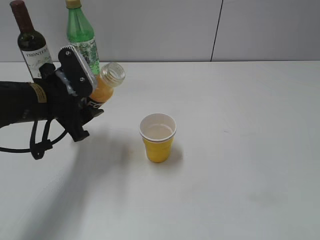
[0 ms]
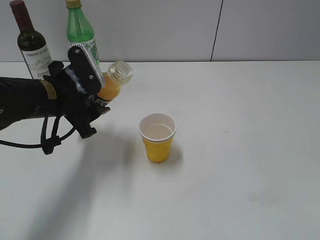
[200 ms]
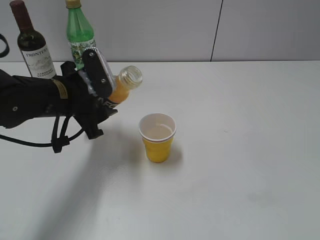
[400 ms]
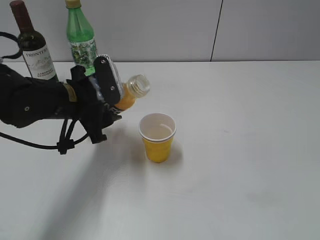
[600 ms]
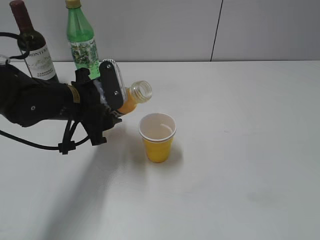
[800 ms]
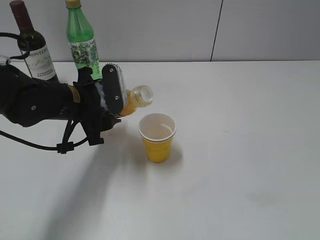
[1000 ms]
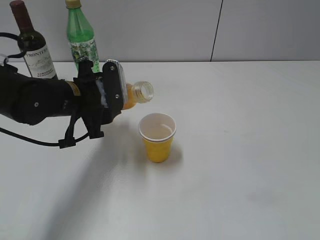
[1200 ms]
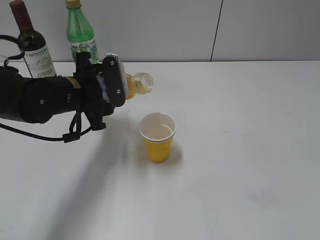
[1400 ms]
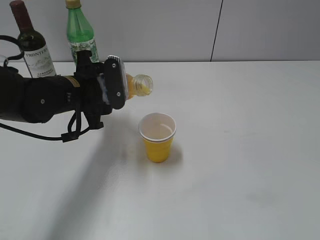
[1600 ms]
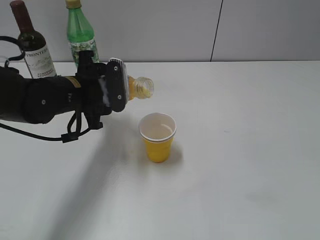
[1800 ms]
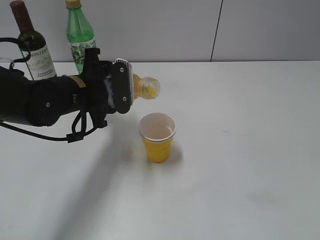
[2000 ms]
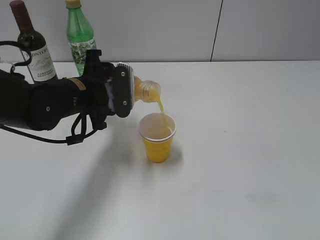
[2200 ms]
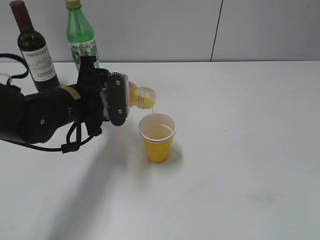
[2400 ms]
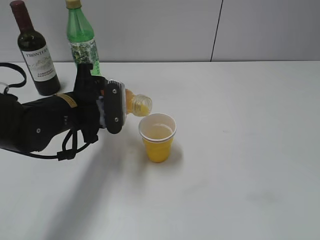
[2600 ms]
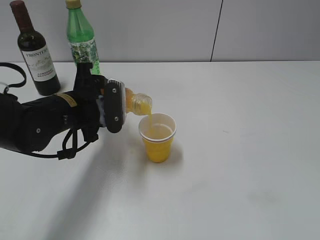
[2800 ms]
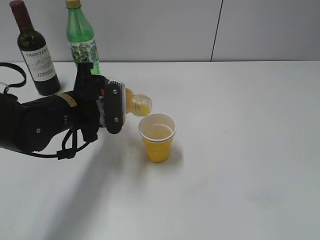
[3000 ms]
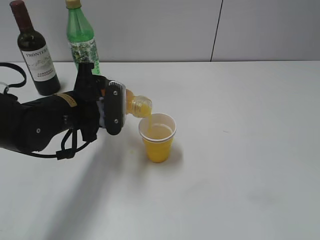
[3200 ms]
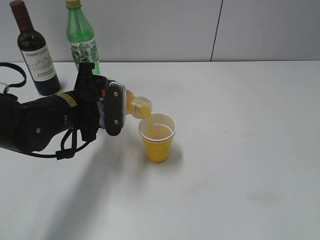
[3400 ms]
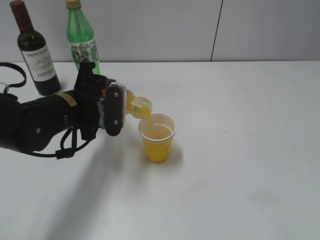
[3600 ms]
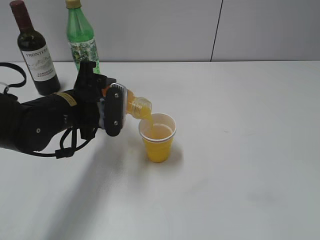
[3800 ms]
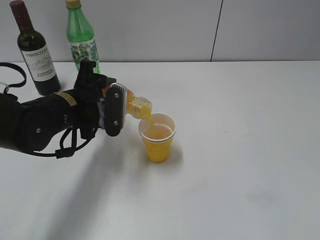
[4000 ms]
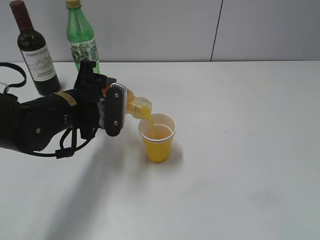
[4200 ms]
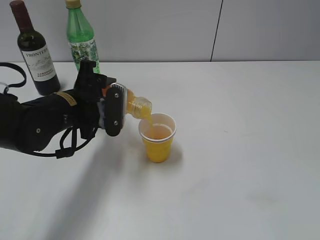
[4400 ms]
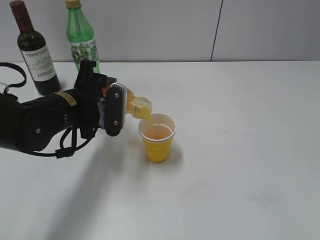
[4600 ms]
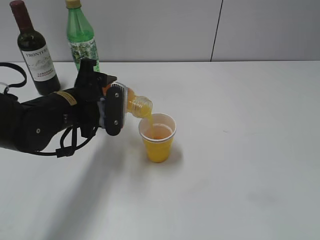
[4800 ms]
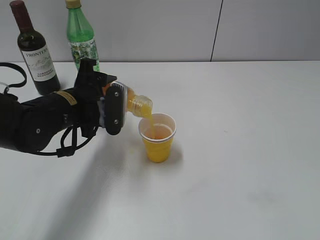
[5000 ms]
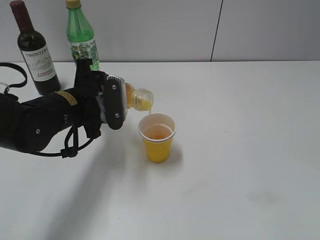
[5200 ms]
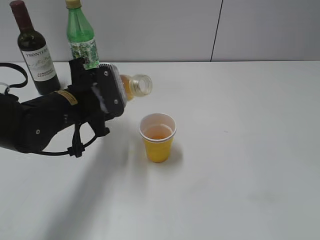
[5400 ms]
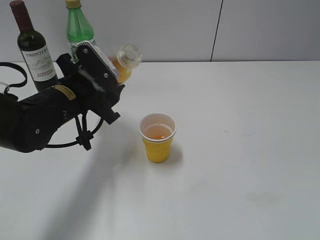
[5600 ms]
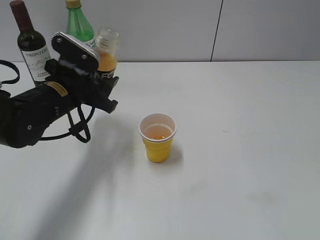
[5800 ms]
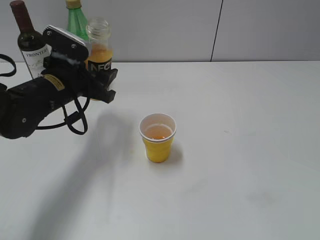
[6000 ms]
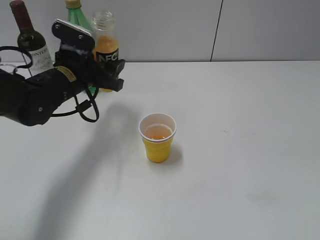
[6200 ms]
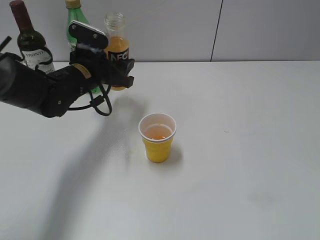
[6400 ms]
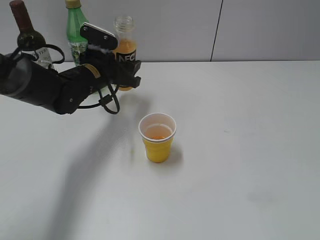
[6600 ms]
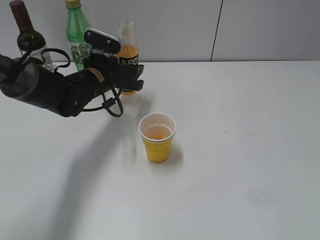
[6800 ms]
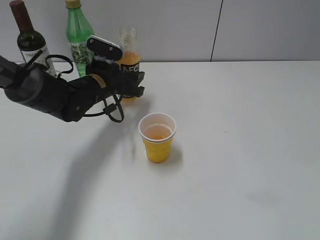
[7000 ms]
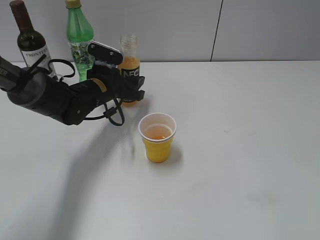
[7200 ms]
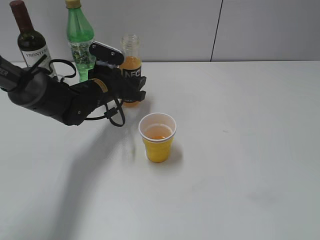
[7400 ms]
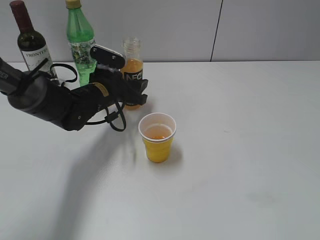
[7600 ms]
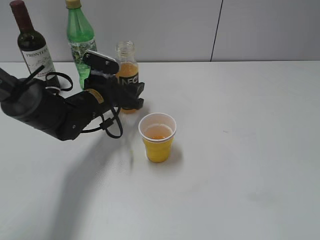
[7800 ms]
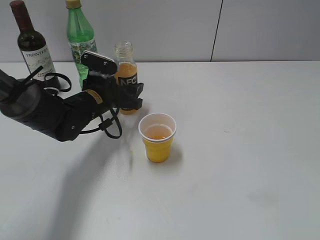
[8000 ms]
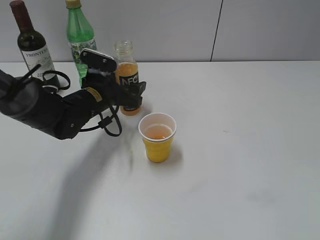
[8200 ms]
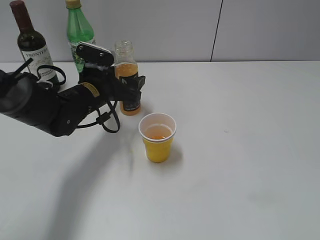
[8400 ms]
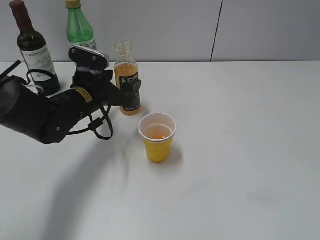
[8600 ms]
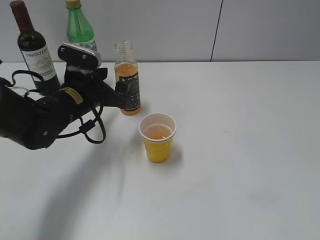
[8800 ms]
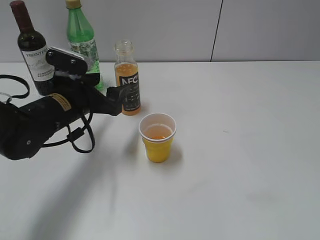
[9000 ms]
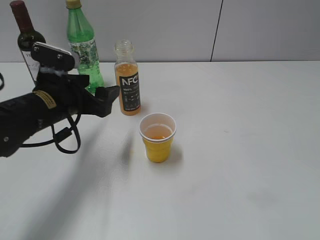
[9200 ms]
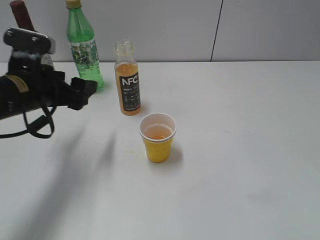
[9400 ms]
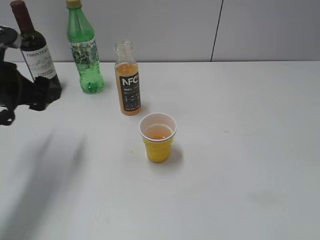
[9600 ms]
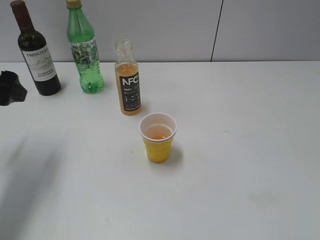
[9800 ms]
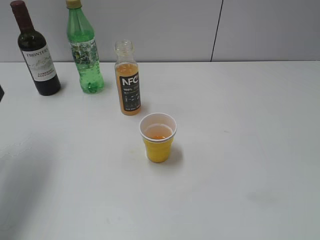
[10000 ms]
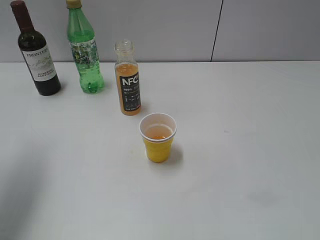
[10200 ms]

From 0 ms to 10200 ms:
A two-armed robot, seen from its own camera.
Step, from 0 ms to 5200 ms: Pour the orange juice from bottle to cup with left gripper.
Step, from 5600 ms to 8600 ms: Place the orange juice bottle on the table with left gripper.
From 0 ms to 1400 ms: The left gripper changes place by some 5 cm.
From 1400 ms to 3000 ms: The grippers make only small movements.
From 3000 ms to 4400 ms: The grippers stay close to where they were, moving slightly.
From 5800 ms to 7200 ms: The left gripper shifts approximately 10 cm forward and downward.
From 7200 ms to 8800 ms: The left gripper heads backward, covering approximately 5 cm, and opens.
From 8800 ms to 10200 ms: The left gripper shifts approximately 25 cm upward, to the left and backward.

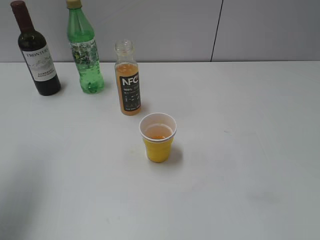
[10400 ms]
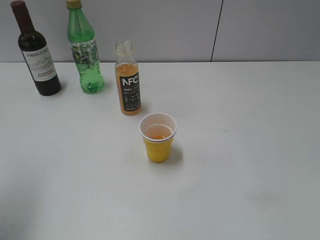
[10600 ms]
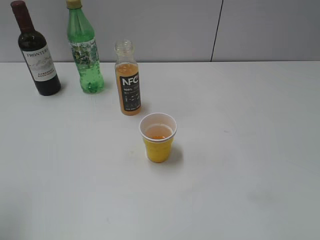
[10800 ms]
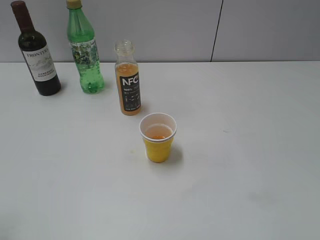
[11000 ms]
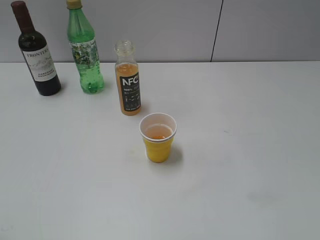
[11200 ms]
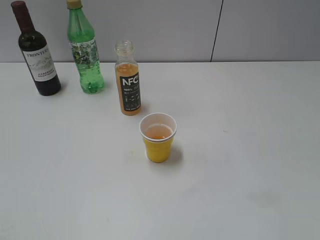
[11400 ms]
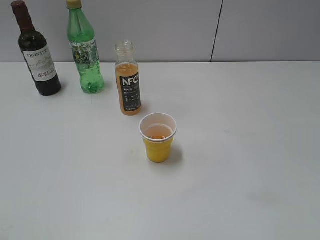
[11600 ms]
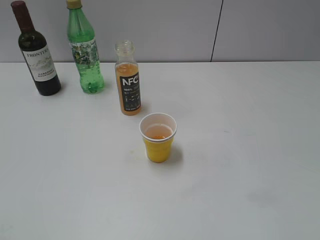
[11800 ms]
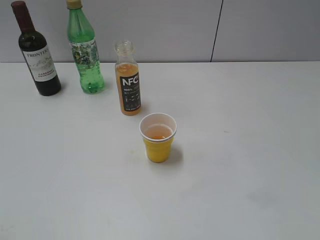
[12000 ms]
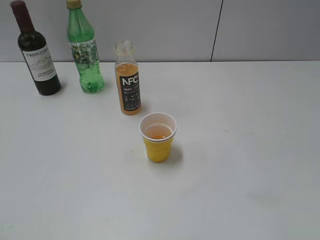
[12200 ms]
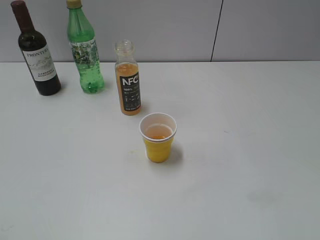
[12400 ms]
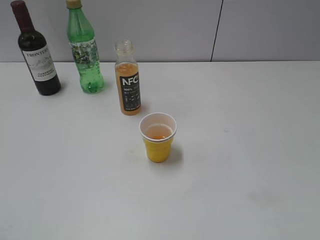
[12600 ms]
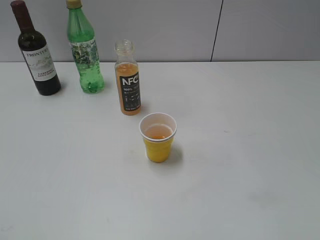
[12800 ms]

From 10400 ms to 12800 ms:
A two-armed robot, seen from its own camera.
From 10400 ms to 11600 ms: The left gripper heads backward, covering approximately 20 cm.
